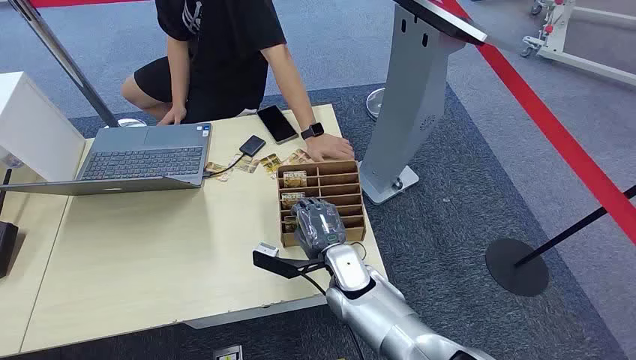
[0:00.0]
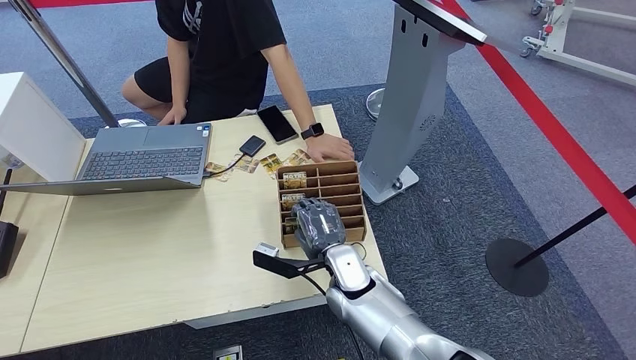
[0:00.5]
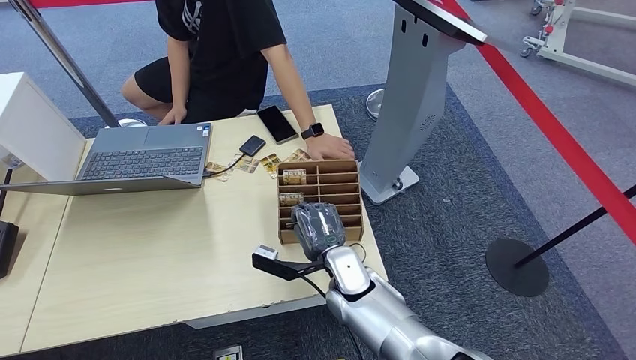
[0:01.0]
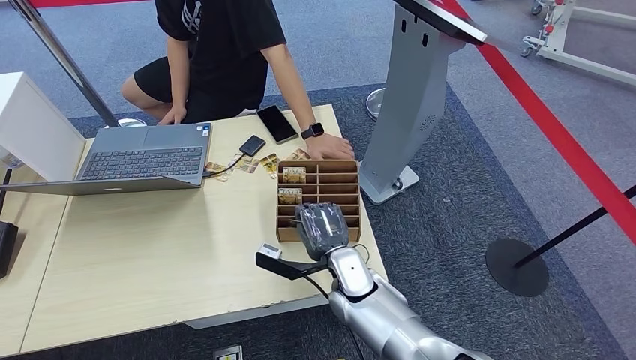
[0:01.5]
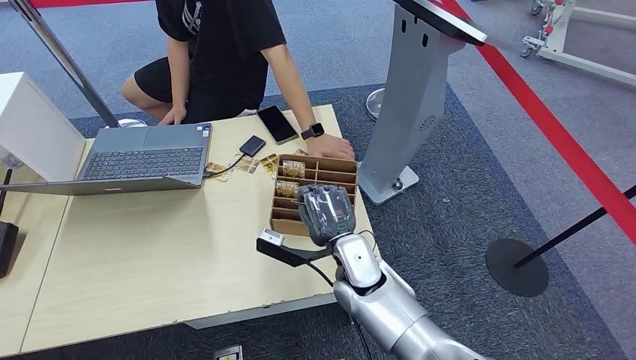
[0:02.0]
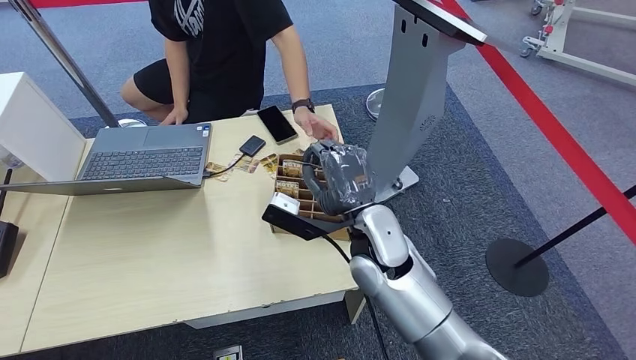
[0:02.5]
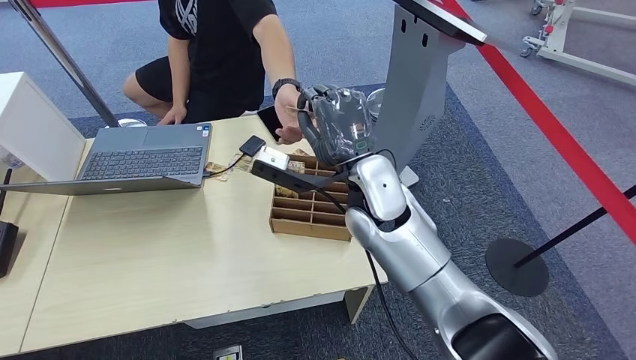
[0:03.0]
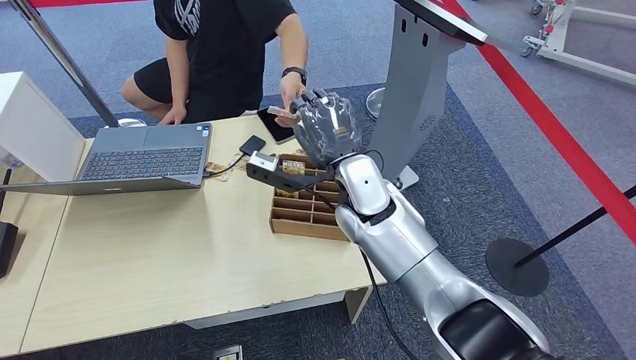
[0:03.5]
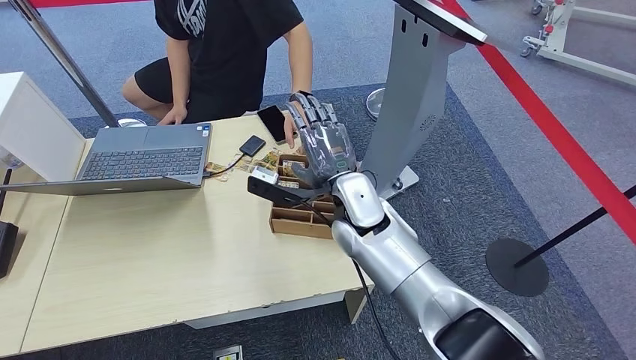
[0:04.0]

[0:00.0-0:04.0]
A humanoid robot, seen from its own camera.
Step, 0:00.0 to 0:02.5: Pick up the room card from the card holder.
Step, 0:03.0 to 0:04.0: Hand the room card to the target.
